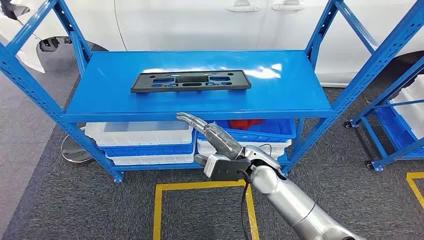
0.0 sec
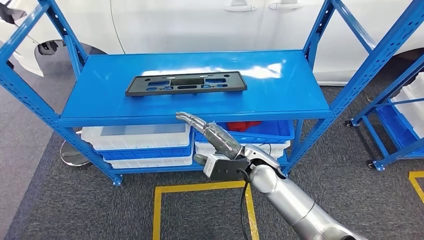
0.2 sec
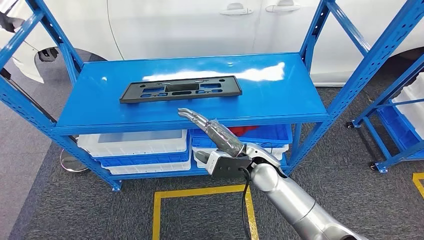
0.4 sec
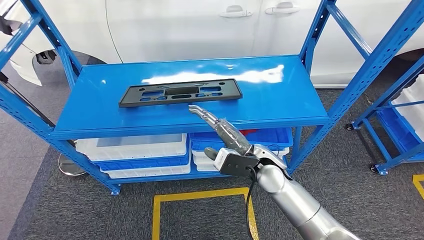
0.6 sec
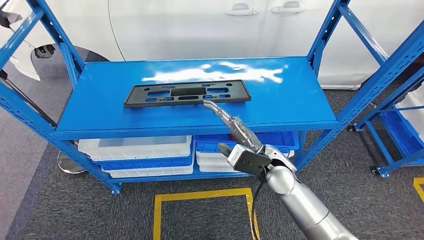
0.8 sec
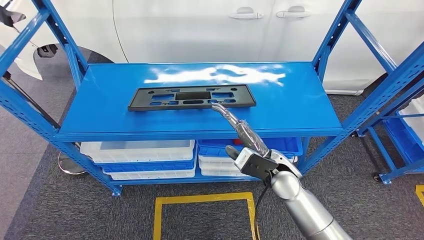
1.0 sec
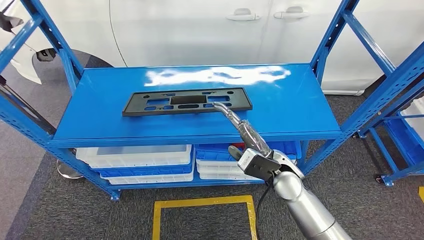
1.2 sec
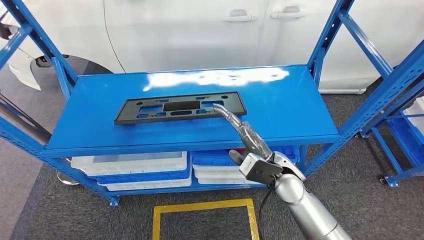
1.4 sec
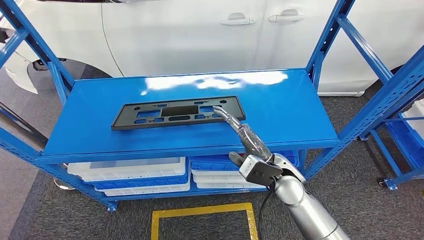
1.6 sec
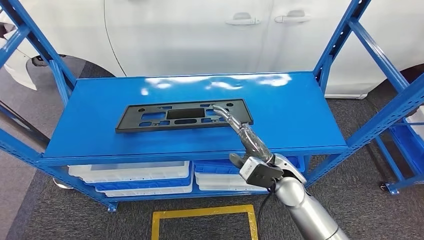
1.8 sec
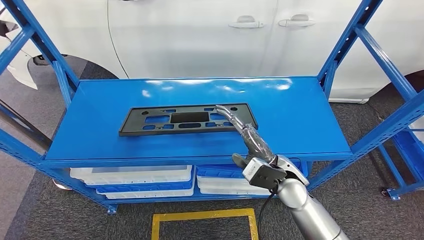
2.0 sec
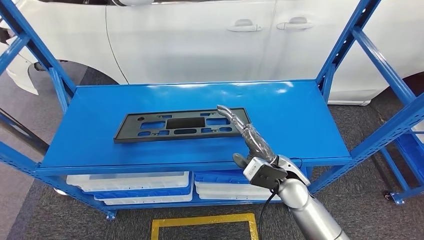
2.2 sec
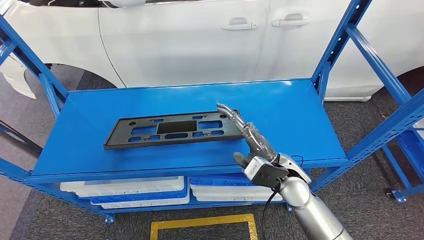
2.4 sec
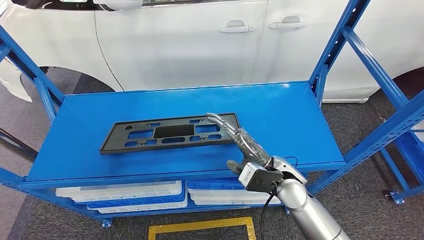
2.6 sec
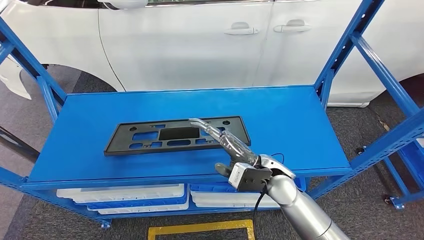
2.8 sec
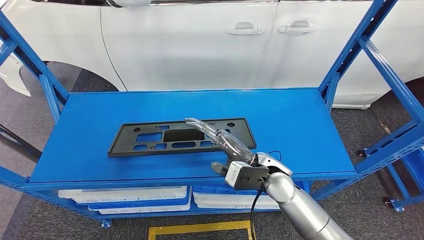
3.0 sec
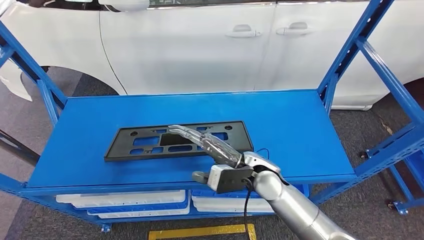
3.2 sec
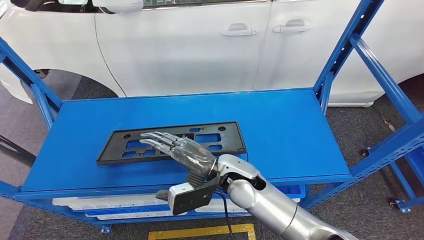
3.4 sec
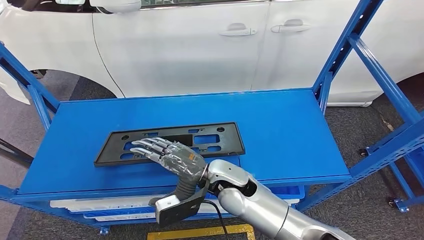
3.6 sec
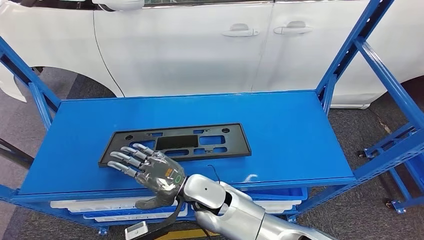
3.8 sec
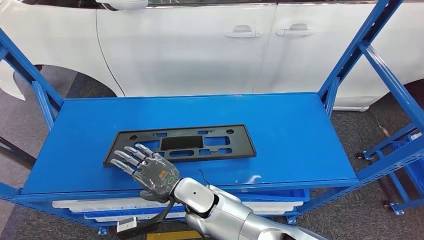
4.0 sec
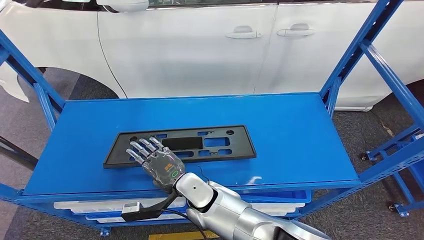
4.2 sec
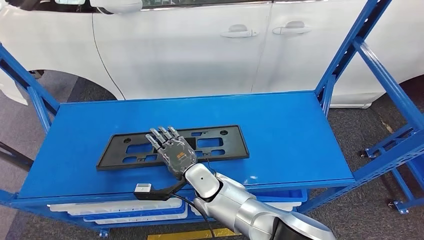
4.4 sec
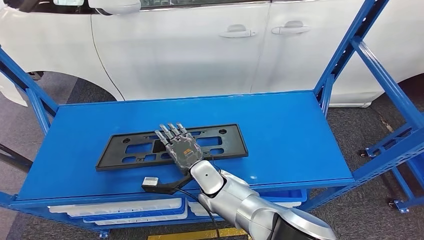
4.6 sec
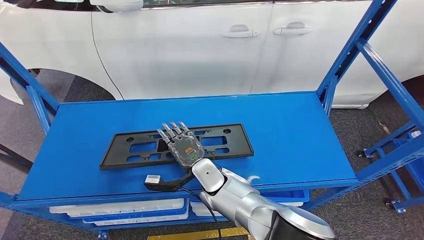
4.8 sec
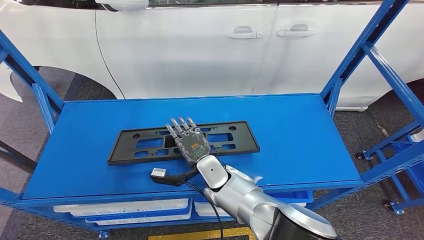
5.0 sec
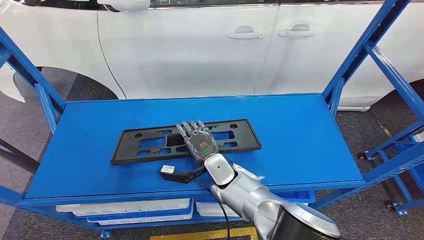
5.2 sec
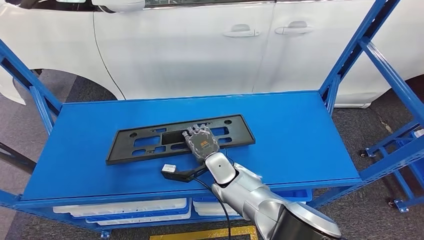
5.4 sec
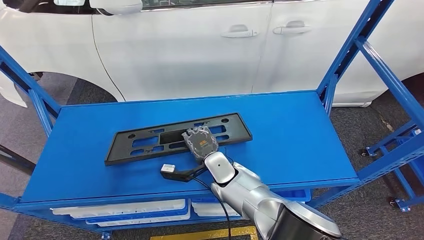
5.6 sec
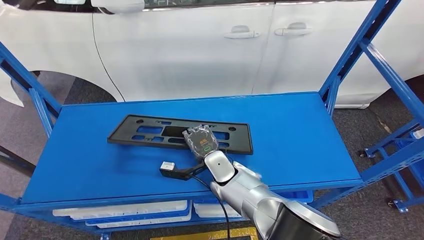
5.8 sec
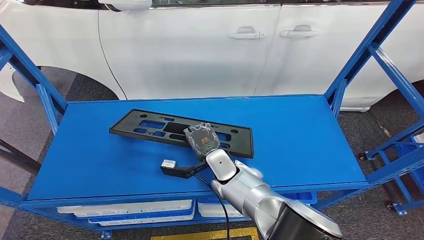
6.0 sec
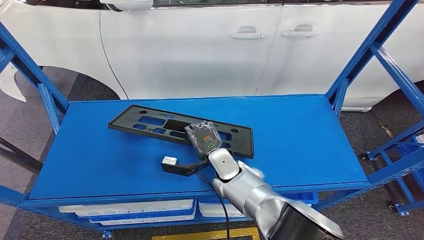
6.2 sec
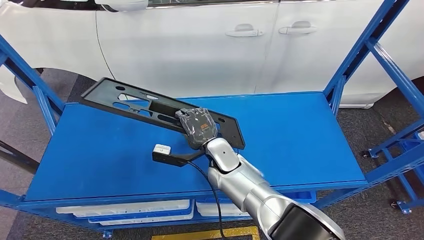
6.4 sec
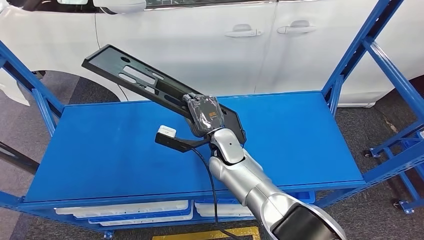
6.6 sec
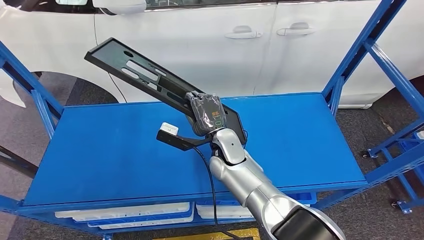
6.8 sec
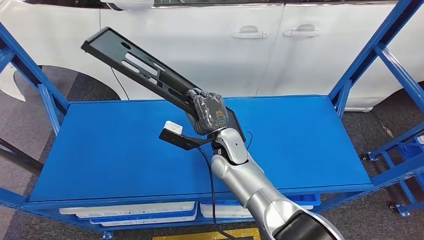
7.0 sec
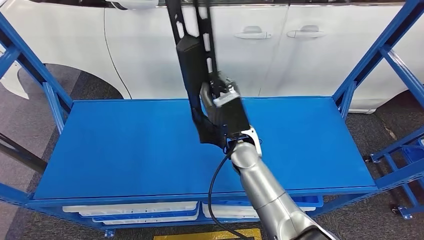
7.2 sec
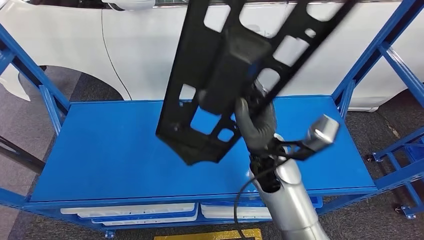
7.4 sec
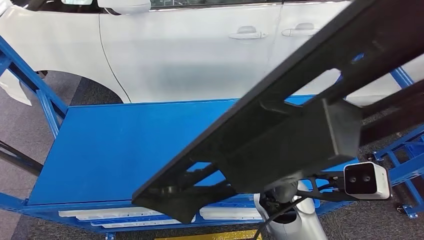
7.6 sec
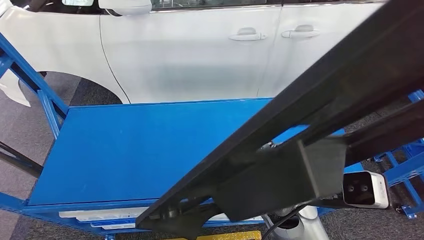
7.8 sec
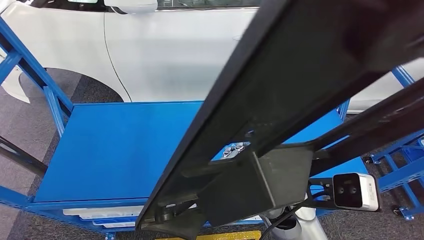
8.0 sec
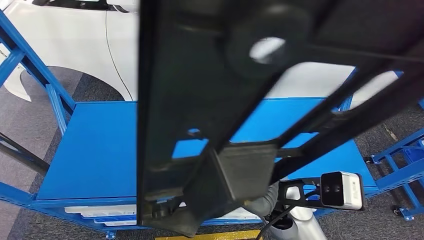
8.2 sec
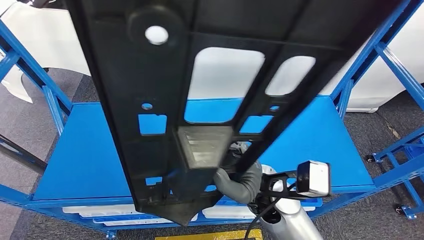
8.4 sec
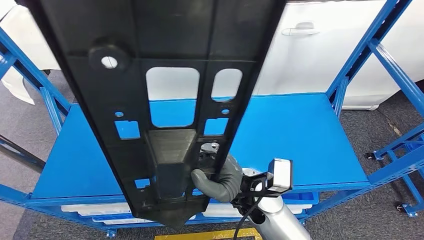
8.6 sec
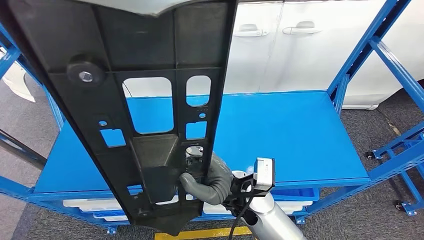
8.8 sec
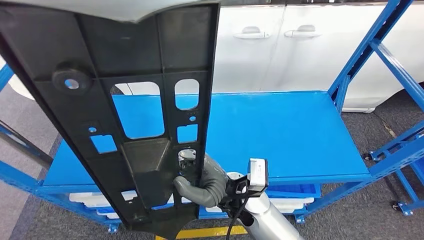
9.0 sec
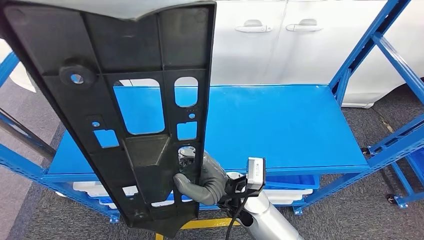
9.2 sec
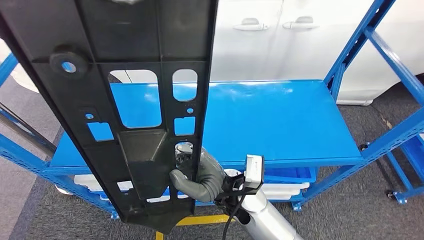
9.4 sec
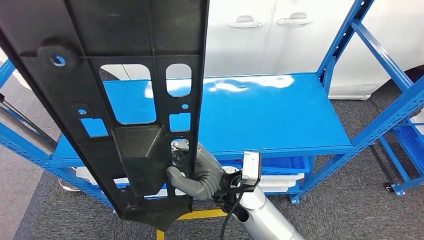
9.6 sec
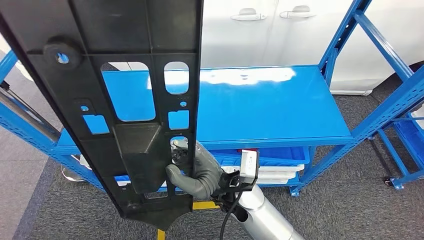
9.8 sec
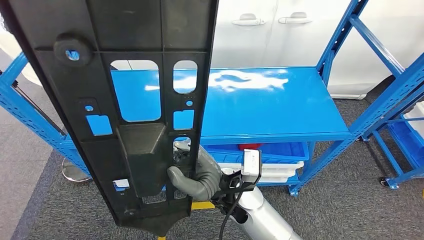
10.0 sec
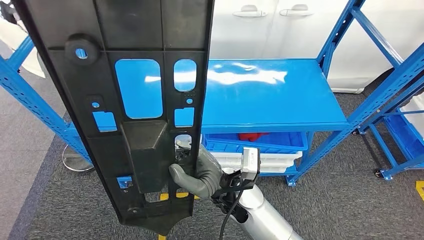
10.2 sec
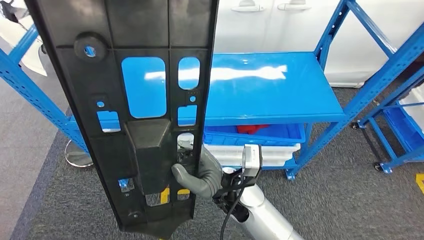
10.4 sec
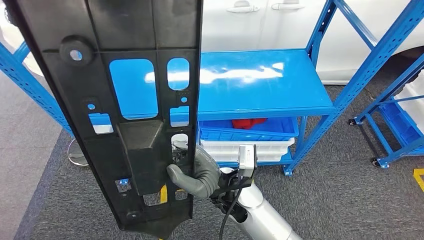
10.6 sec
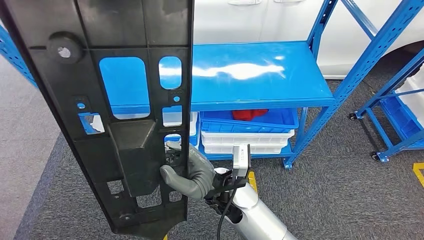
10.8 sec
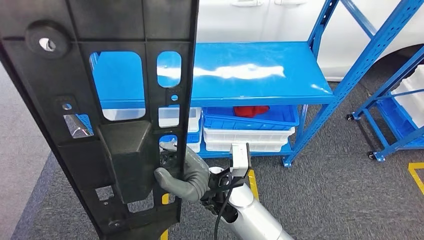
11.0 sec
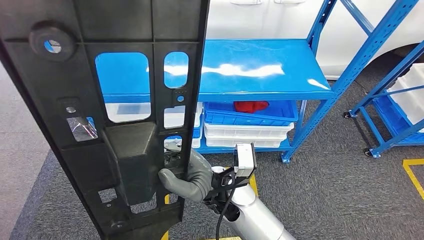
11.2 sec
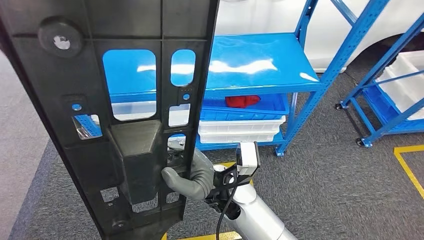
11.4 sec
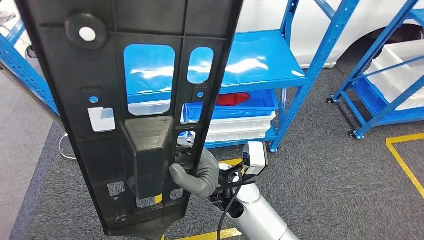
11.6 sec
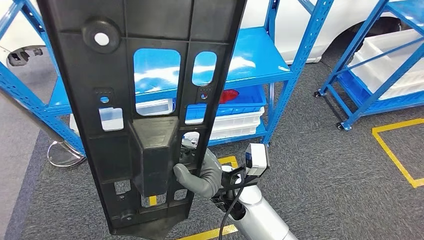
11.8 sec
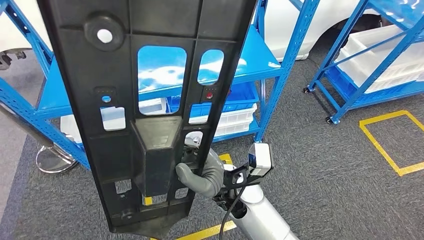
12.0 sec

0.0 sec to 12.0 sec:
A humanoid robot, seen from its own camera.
Step, 0.0 sec to 7.8 sec: Pick up the small component from the shelf.

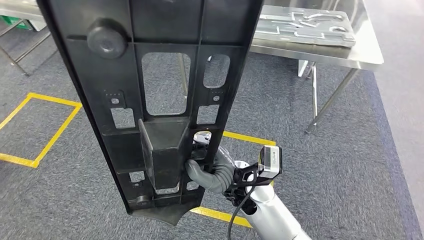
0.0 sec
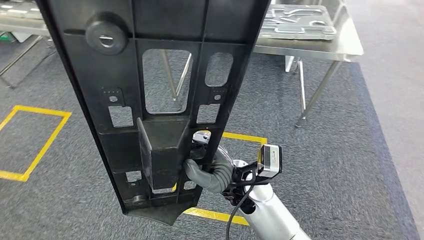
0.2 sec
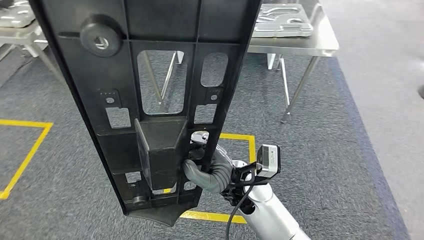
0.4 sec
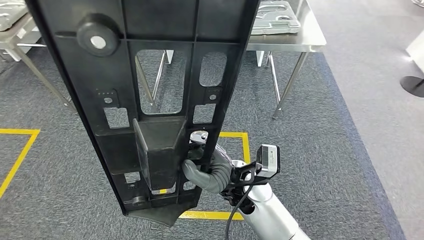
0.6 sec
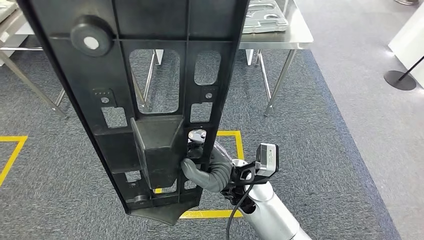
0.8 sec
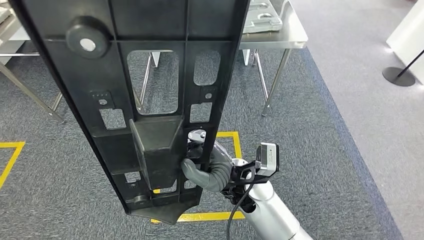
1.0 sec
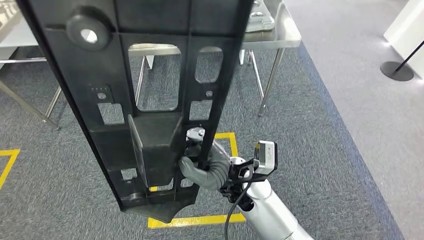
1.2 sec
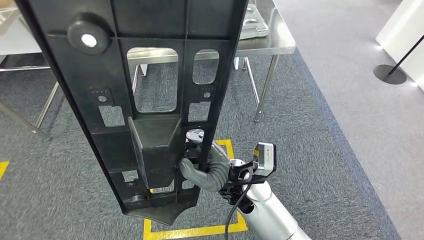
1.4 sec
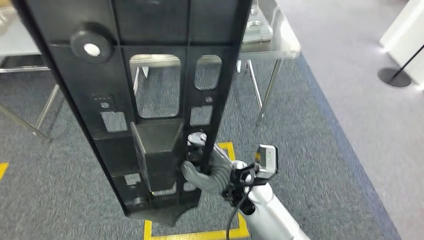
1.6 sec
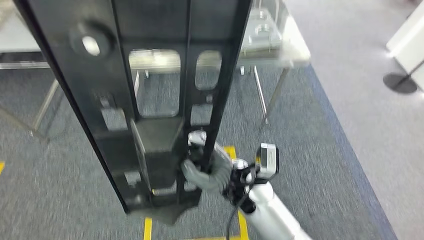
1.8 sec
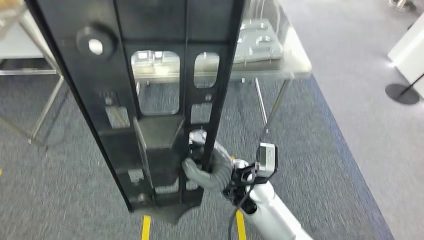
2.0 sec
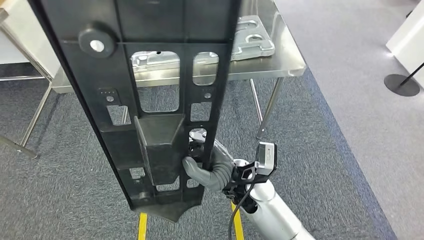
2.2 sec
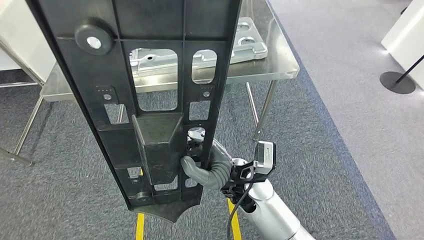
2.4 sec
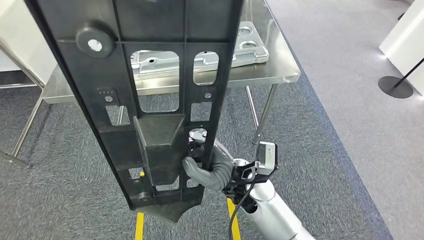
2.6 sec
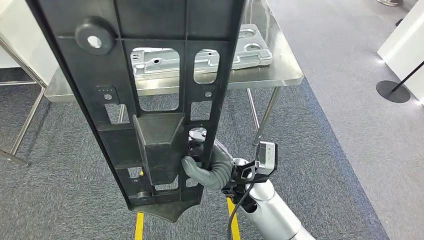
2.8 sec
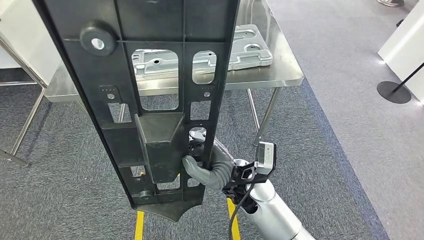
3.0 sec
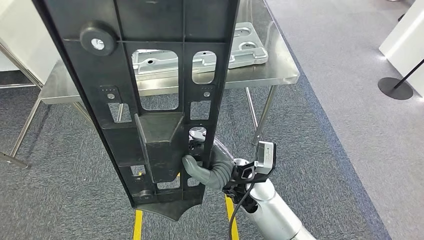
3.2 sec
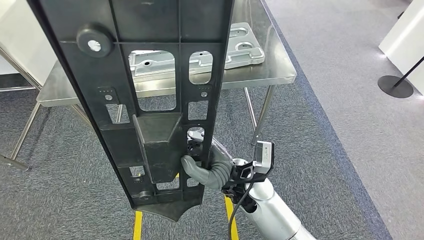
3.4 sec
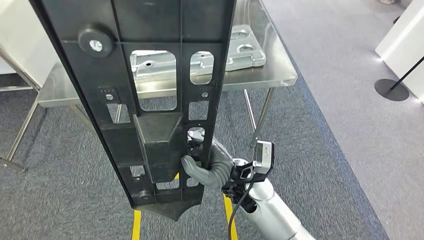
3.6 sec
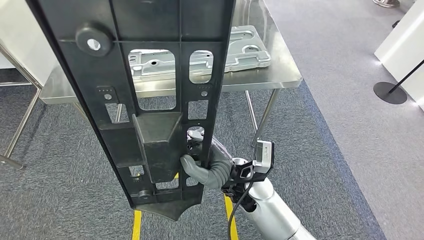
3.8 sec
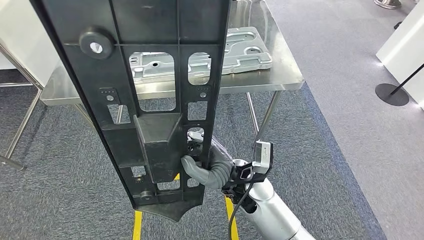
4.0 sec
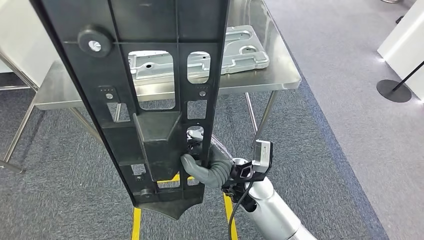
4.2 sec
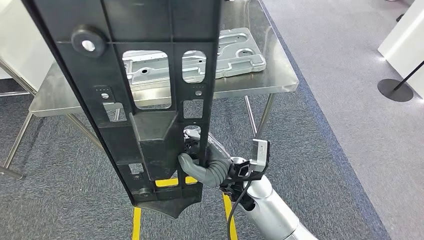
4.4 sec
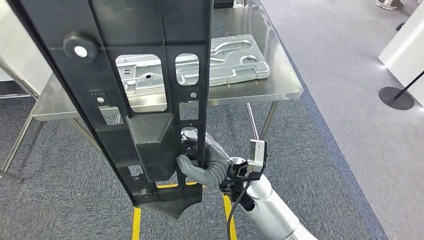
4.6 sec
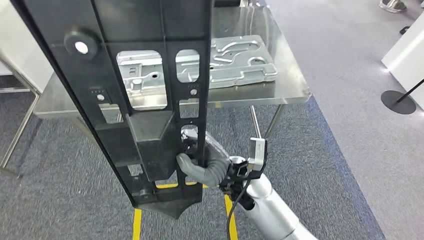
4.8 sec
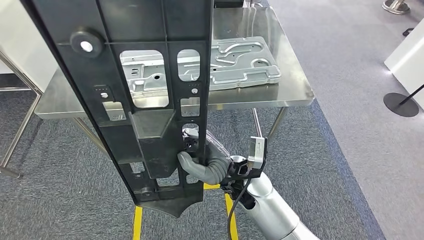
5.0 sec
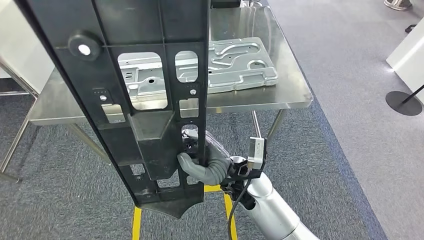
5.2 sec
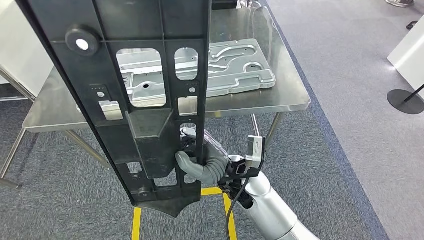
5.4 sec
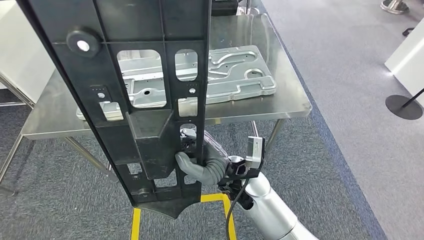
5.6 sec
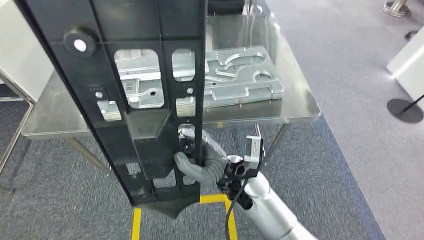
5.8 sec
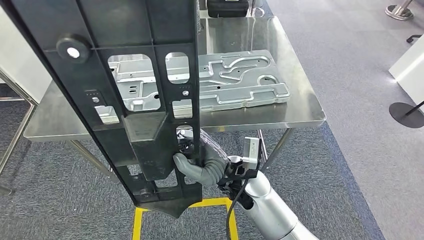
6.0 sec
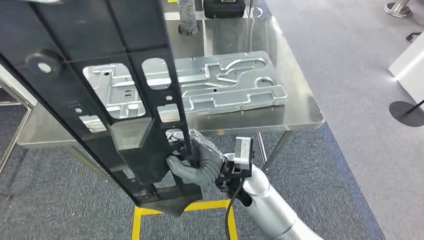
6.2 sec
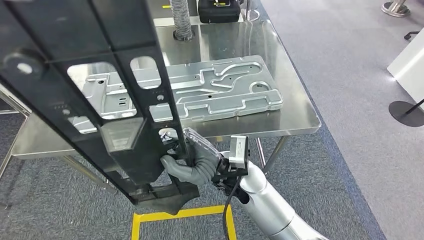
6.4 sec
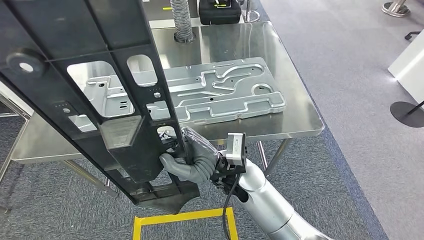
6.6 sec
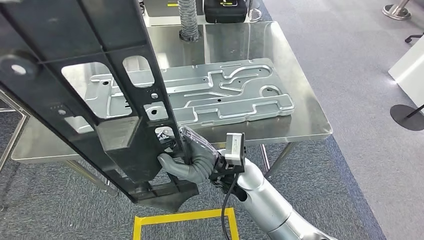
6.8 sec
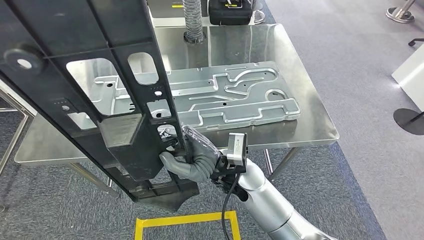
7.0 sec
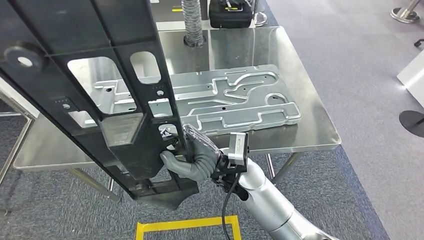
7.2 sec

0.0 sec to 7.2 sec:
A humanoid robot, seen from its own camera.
Step, 0.0 sec to 5.8 sec: Move the small component to the workbench.
